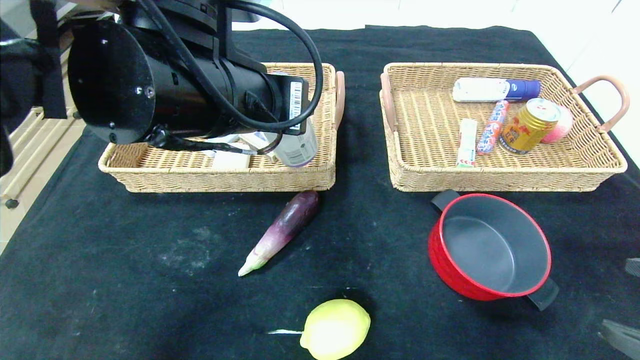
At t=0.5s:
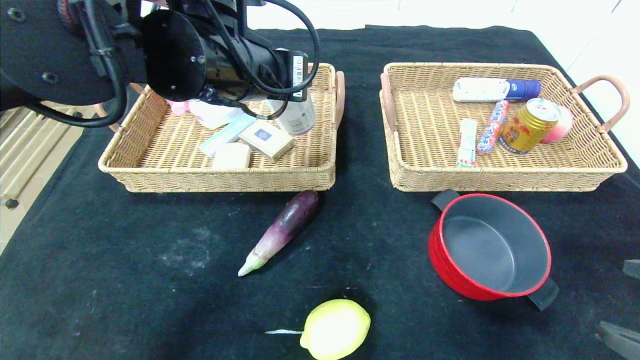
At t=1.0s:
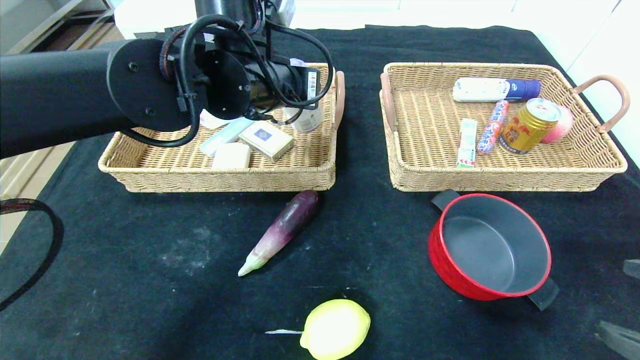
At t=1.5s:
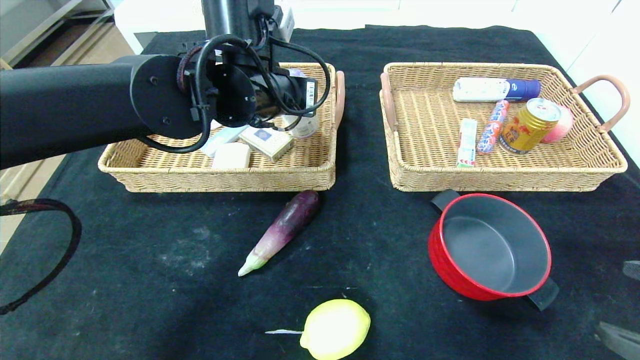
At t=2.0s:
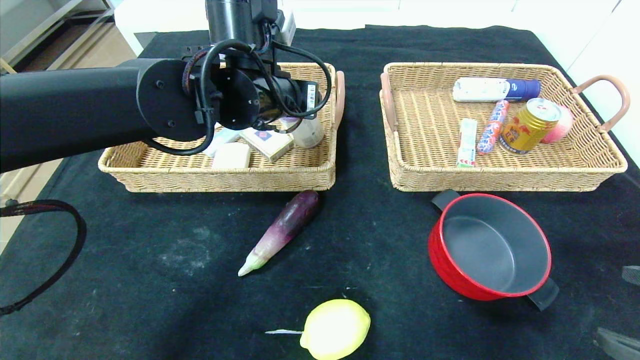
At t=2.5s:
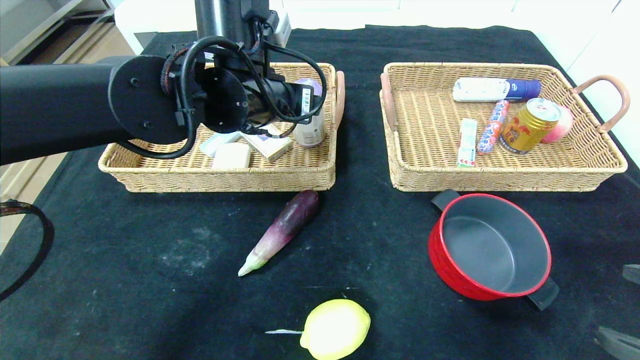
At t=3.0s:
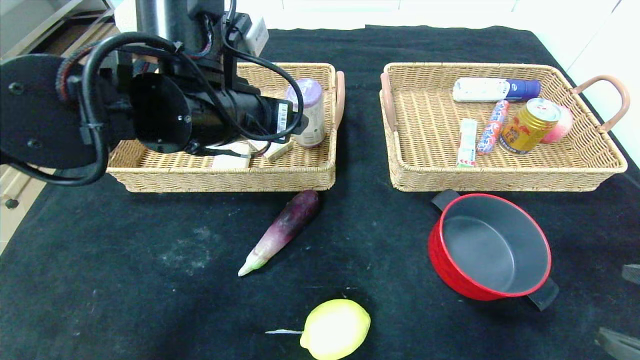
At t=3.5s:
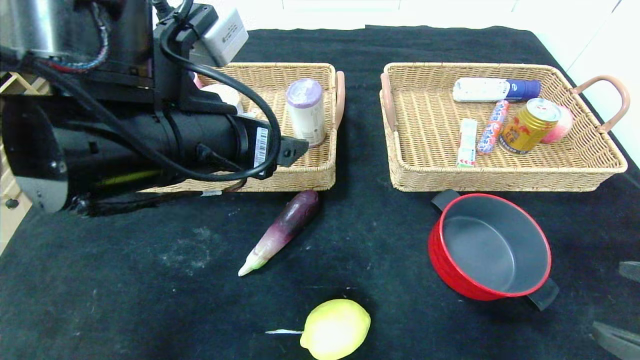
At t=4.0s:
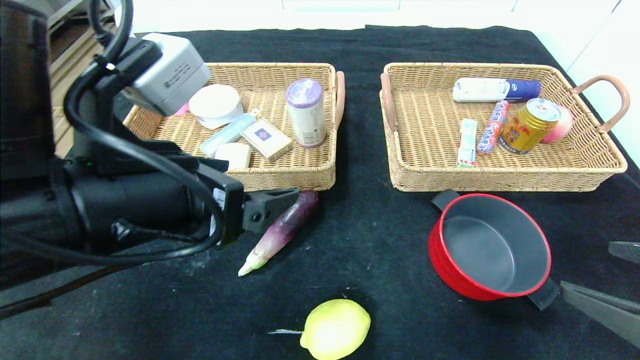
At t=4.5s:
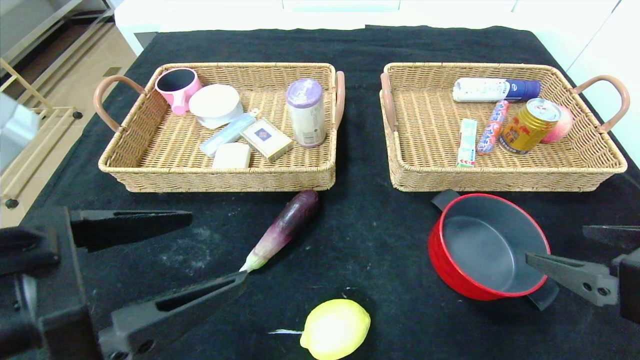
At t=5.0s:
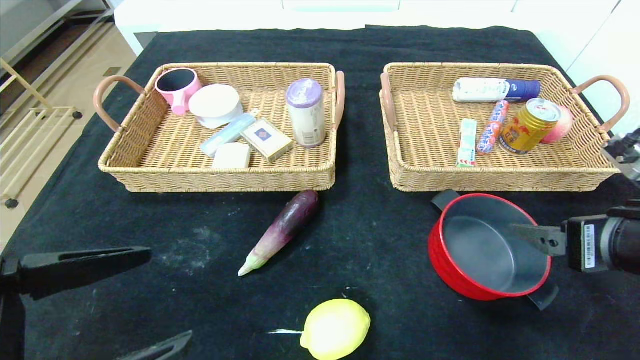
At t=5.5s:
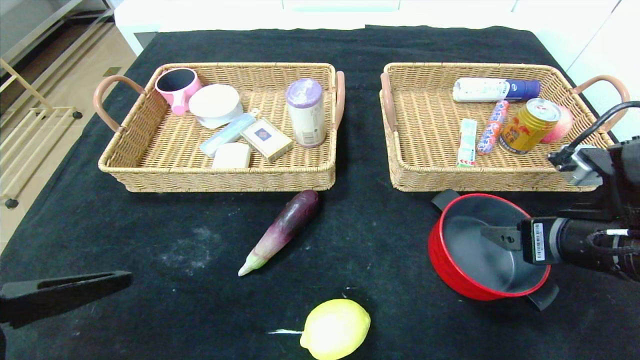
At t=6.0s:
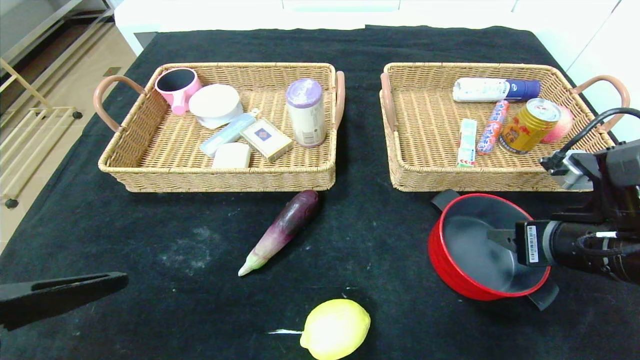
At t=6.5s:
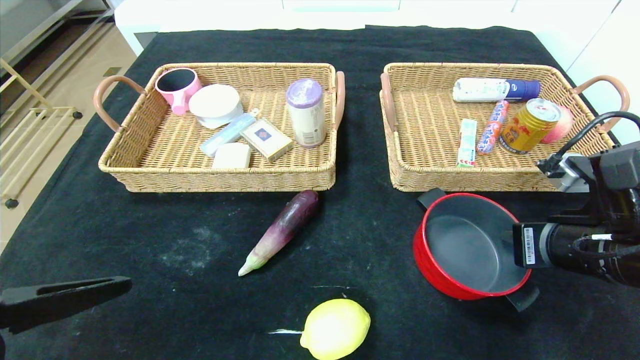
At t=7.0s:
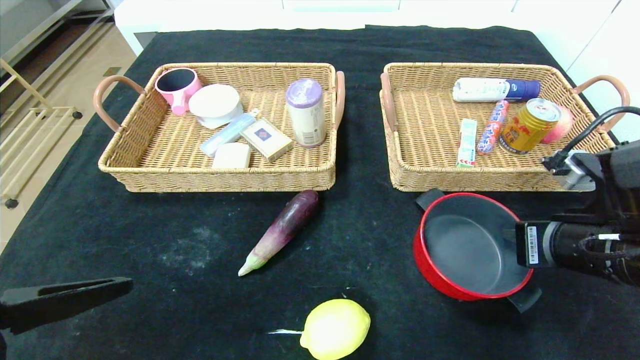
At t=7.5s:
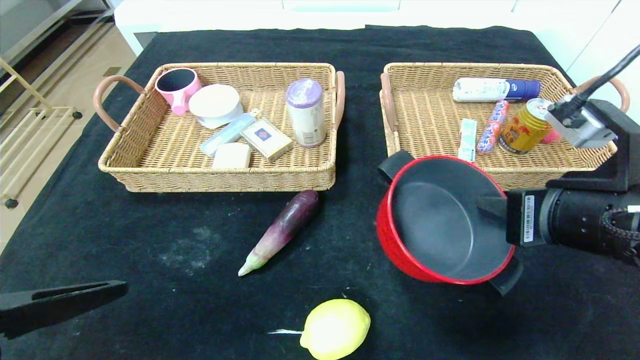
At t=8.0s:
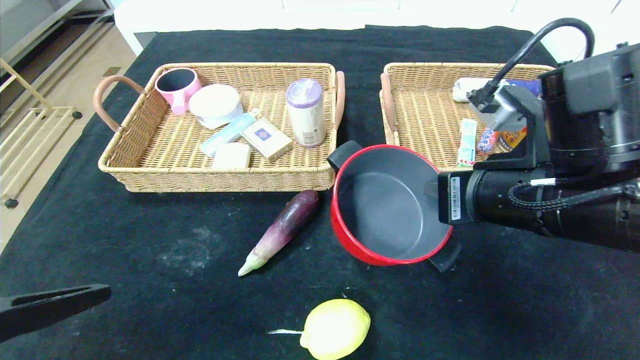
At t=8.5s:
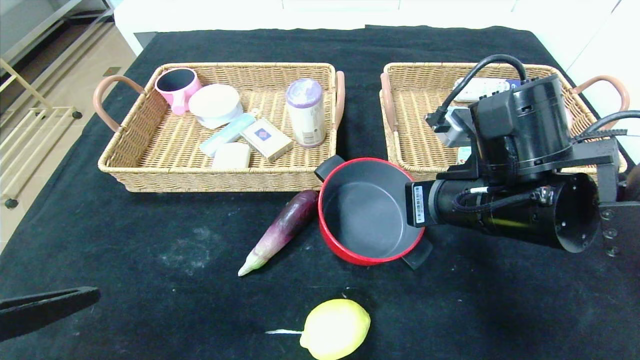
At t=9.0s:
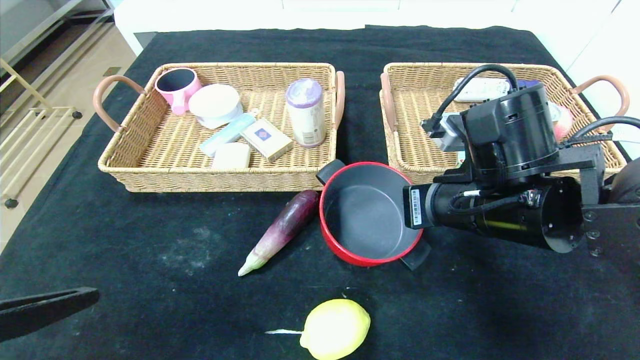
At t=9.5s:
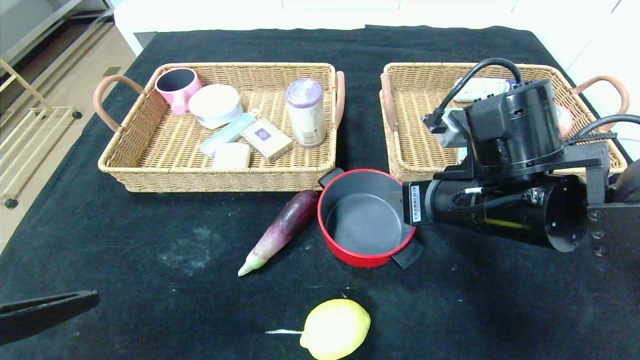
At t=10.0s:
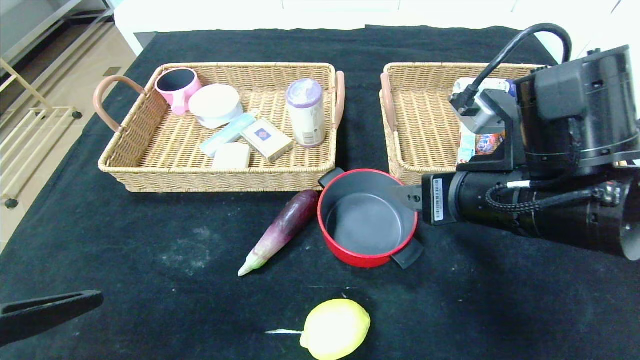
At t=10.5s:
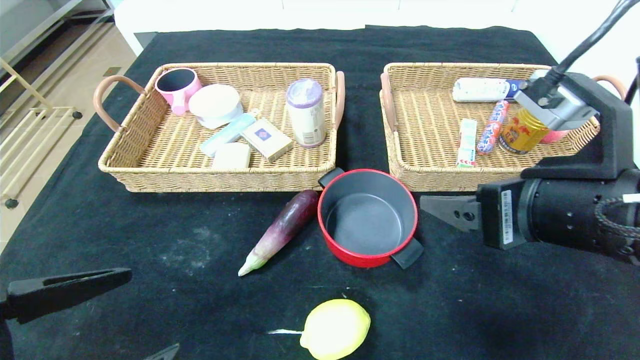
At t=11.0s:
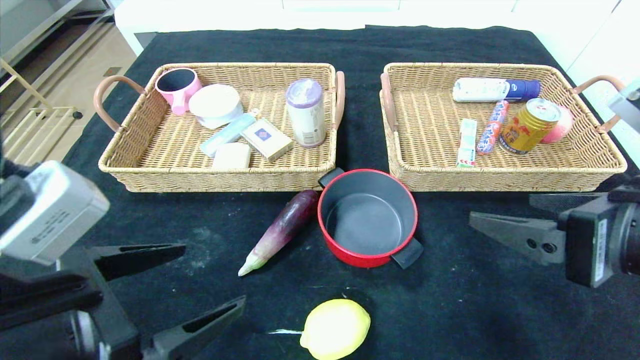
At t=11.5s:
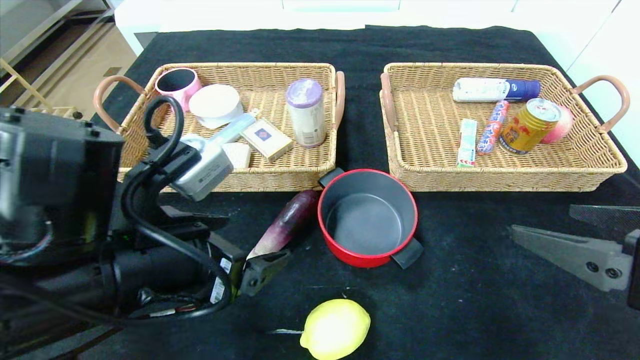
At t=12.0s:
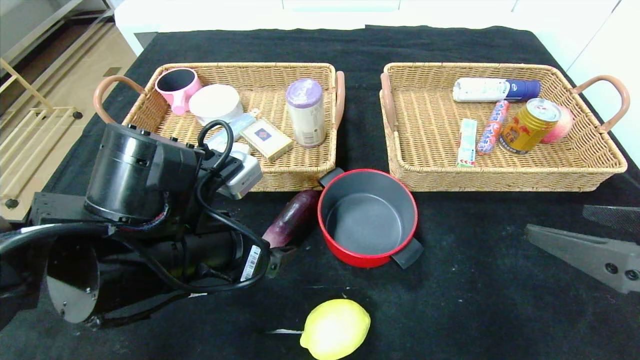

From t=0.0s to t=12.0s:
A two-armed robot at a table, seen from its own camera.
Step, from t=0.0s to t=4.0s: Pick up the purple garbage bag and put it in the left basket.
Step, from t=4.5s to t=10.5s: Place the red pot in the center of the table.
From t=0.0s to t=2.0s: The left gripper moves forward, some 10 cm.
From t=2.0s to t=4.0s: The left gripper travels backward by some 20 cm.
From t=4.0s to t=6.0s: The left gripper is displaced backward, to the left and downward by approximately 15 cm; the right gripper heads forward, covering some 10 cm, and closes up.
From t=6.0s to t=8.0s: The right gripper travels to the left and upward by about 10 cm, and closes up.
From t=8.0s to t=10.0s: The right gripper opens up.
From t=10.0s to t=12.0s: The right gripper goes roughly 15 cm backward and to the right. Meanwhile the left gripper goes about 20 cm forward and to the right.

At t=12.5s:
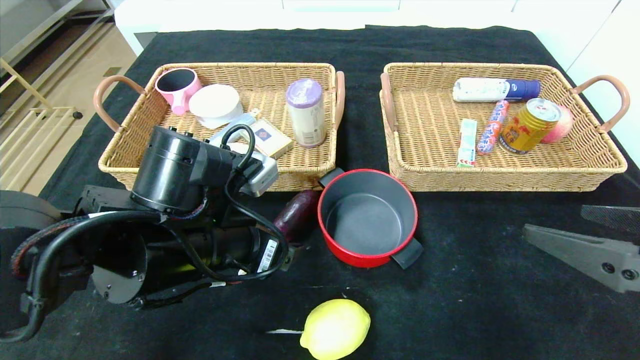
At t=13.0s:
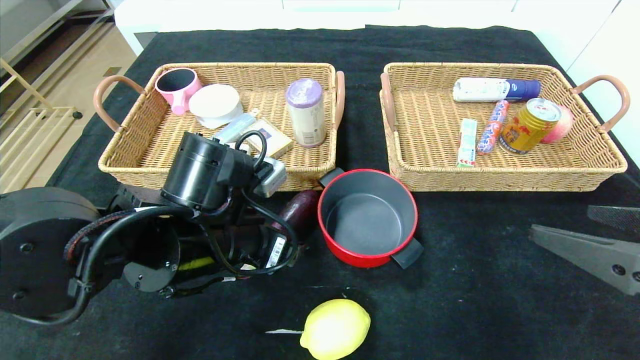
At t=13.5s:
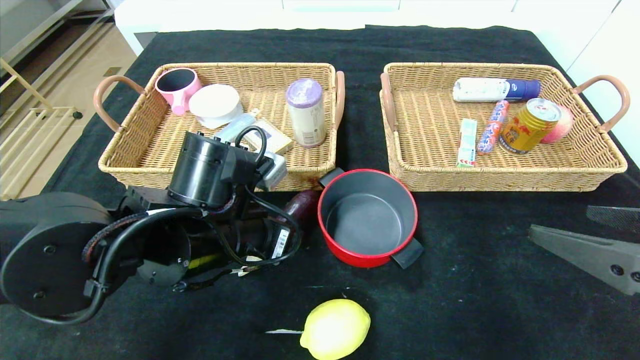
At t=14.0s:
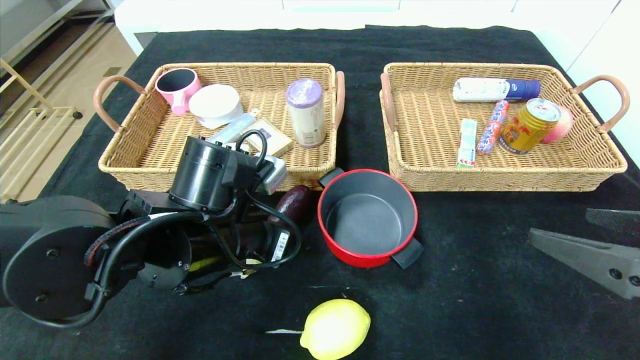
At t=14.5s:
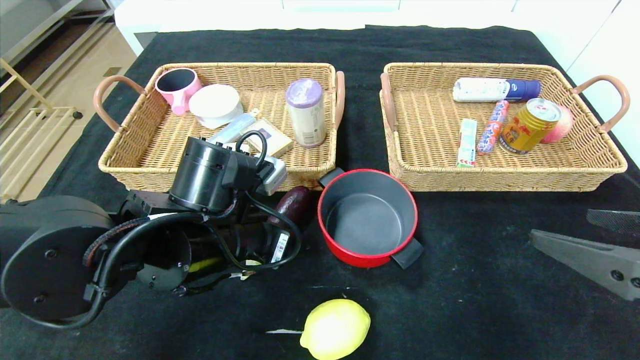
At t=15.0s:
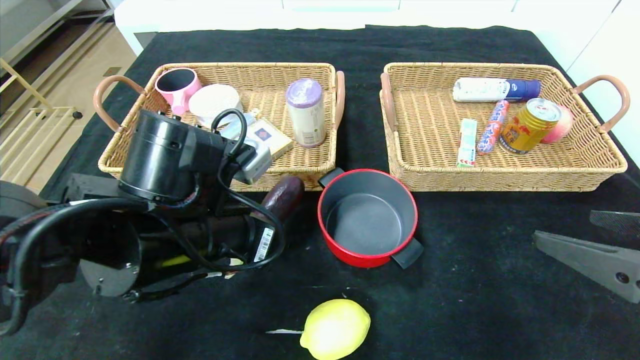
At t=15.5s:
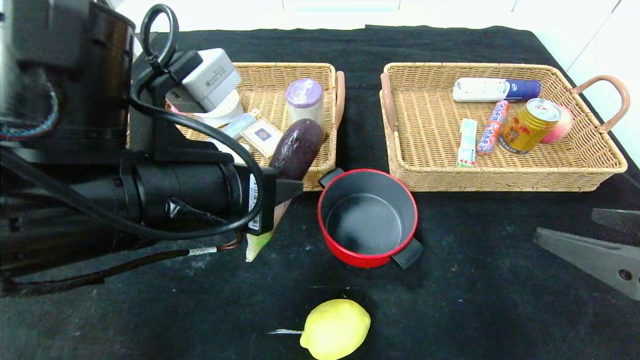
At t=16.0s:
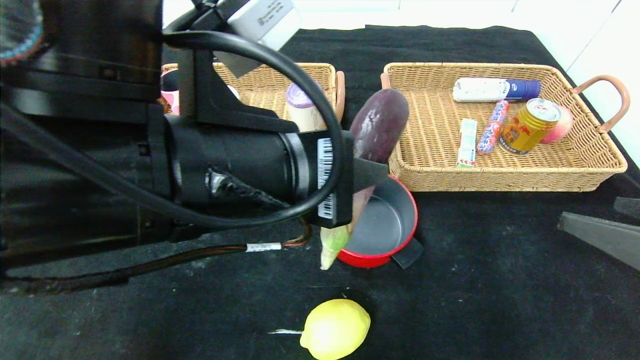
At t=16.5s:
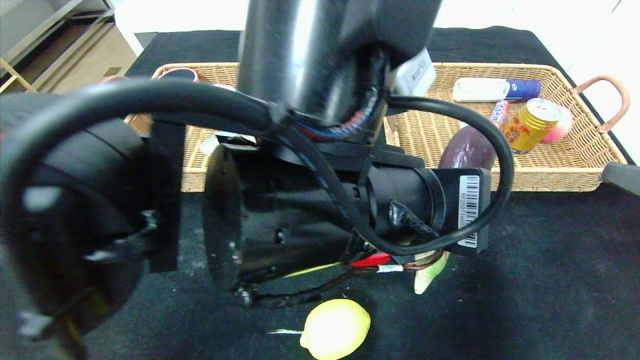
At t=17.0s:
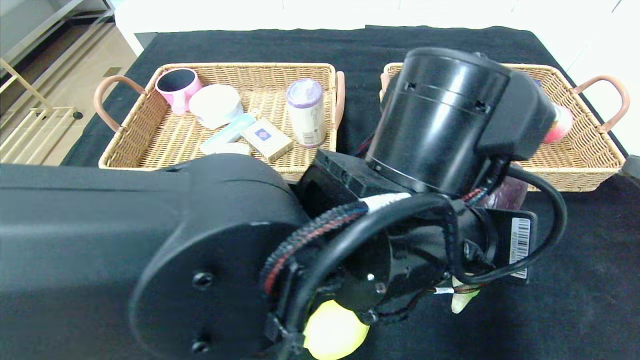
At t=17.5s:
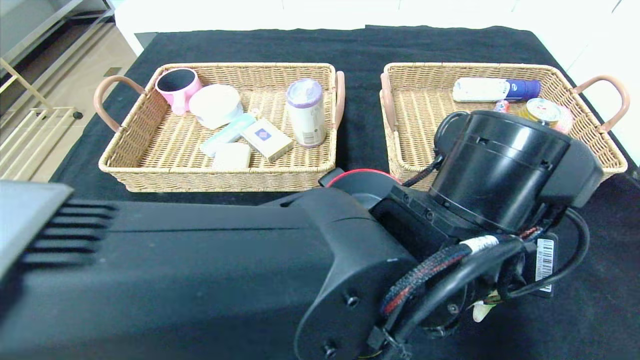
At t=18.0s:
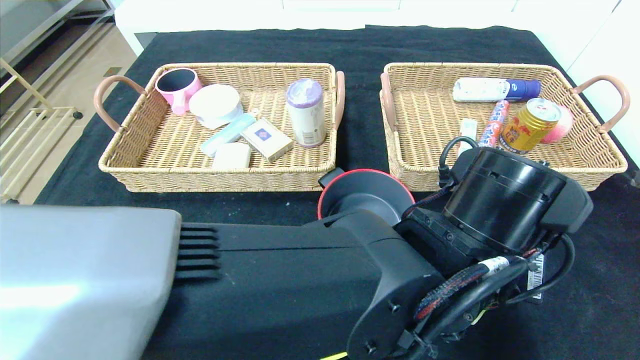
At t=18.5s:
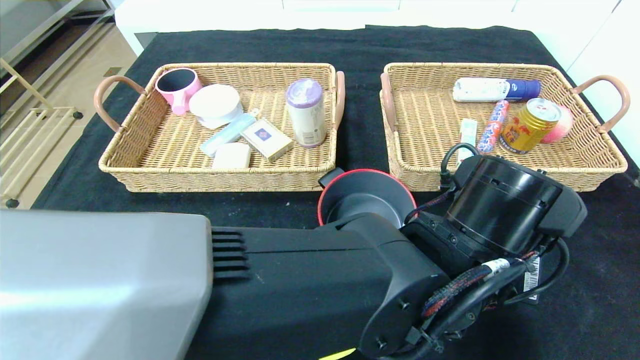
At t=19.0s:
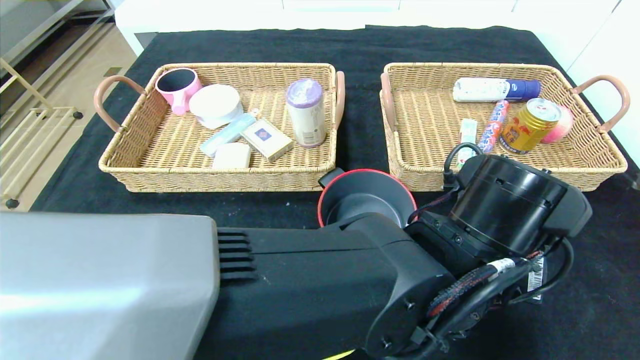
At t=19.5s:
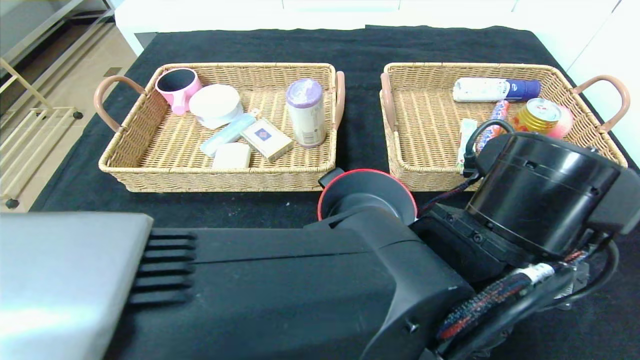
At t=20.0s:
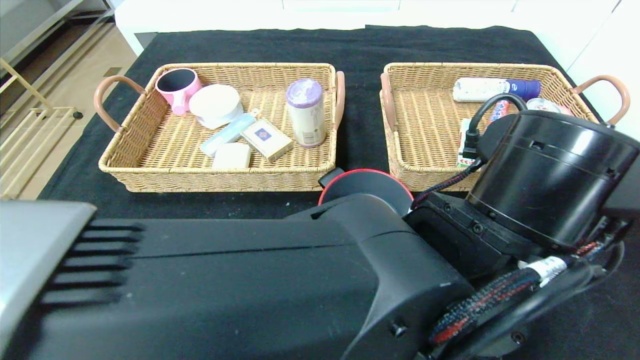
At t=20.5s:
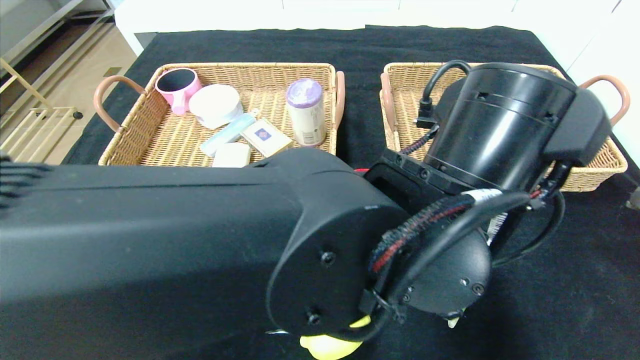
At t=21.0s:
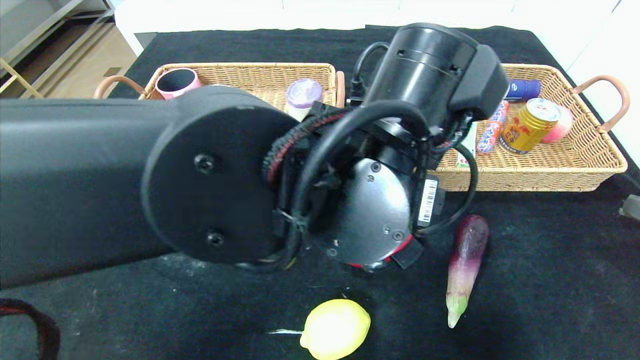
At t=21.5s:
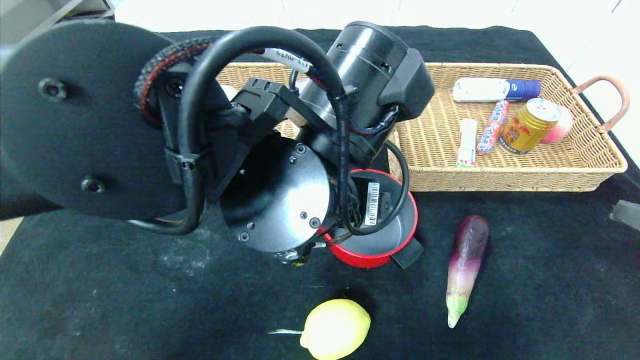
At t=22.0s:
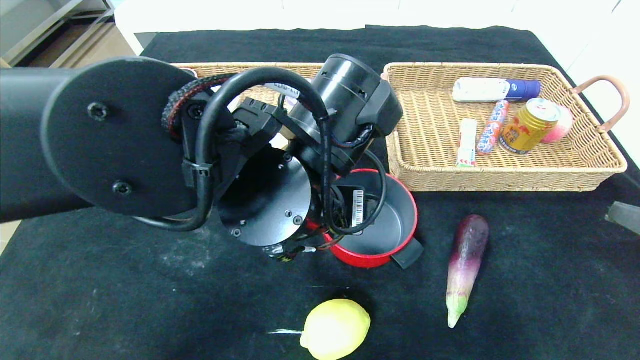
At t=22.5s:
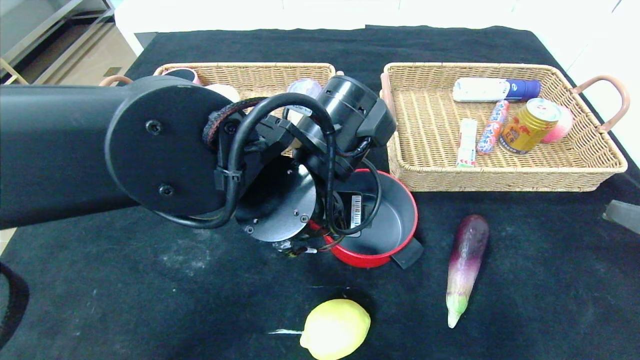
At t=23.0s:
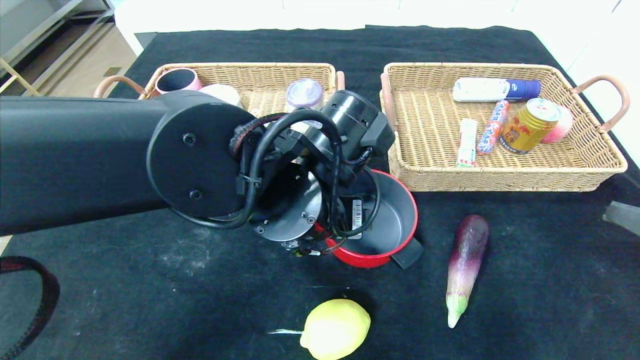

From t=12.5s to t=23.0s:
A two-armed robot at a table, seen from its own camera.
Step, from t=12.5s to t=21.0s: Place the eggplant in the center of the table.
From t=12.5s to t=14.5s: The left gripper closes.
From t=14.5s to t=16.5s: The left gripper shifts approximately 15 cm to the right, upward and backward.
From t=16.5s to t=19.0s: The left gripper moves to the right and downward, roughly 15 cm, and opens its fingers.
From t=19.0s to t=21.0s: The left gripper heads to the left and upward, covering some 10 cm.
From t=21.0s to t=23.0s: The left gripper shifts some 5 cm to the left.
